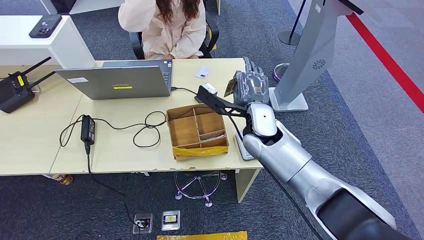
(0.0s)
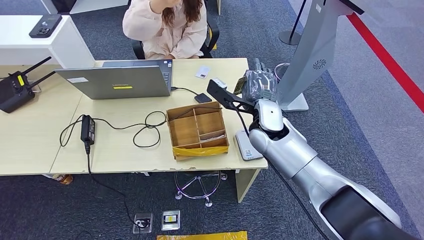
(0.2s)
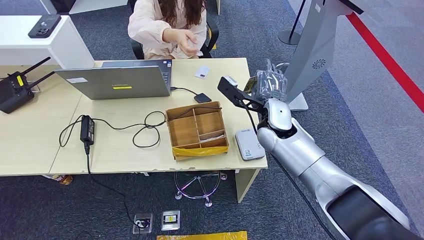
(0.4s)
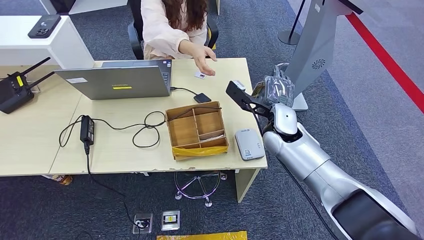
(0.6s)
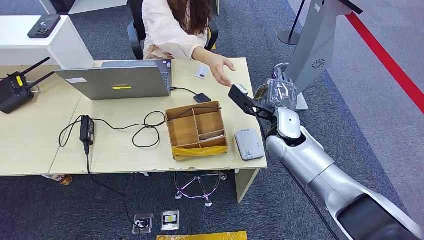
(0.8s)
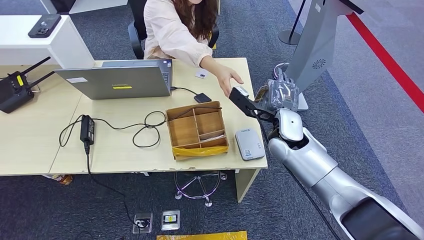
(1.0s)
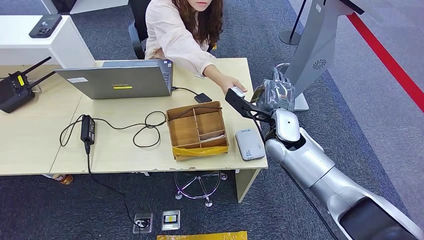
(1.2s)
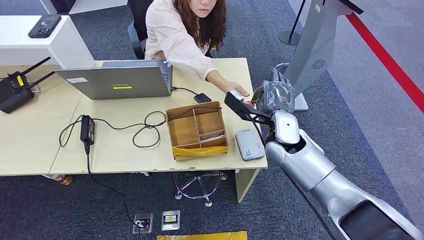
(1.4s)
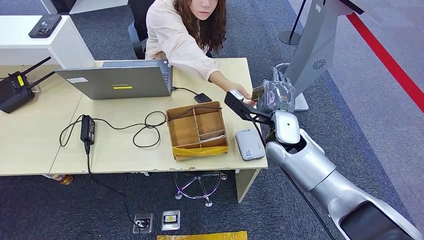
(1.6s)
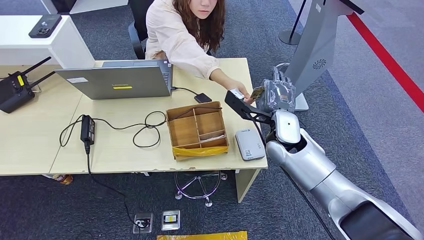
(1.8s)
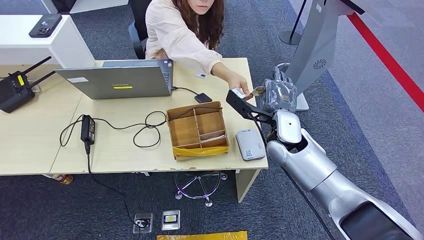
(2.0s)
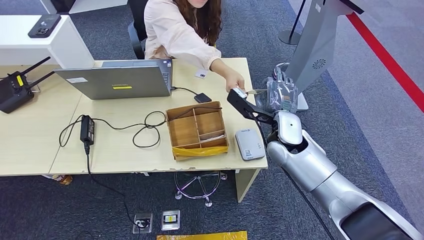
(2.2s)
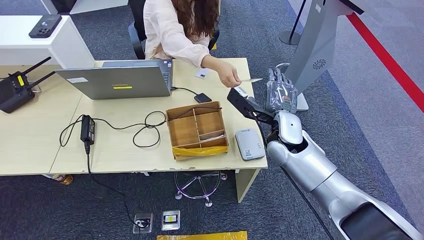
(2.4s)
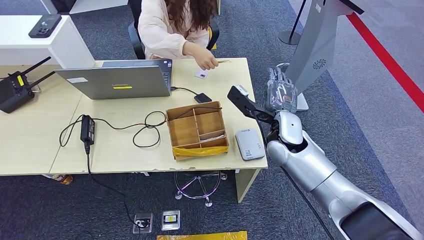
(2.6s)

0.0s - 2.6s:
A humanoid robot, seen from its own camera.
Step, 0.0s - 2.6s: Hand the room key to the person.
0.0s - 1.2s: The right hand shifts some 5 cm to the right.
1.2s - 2.6s: There are only small adjustments of the hands.
